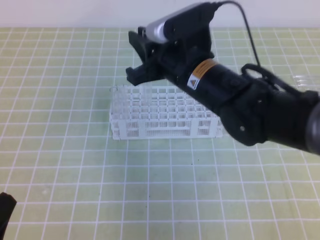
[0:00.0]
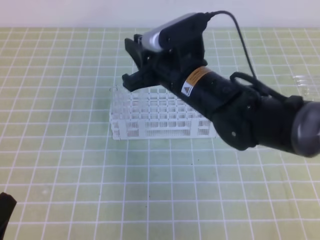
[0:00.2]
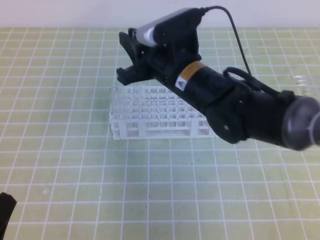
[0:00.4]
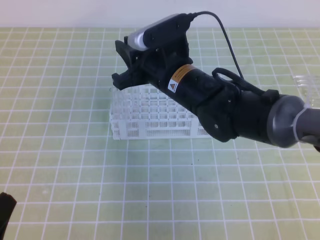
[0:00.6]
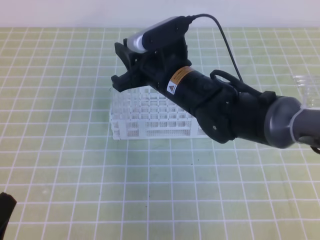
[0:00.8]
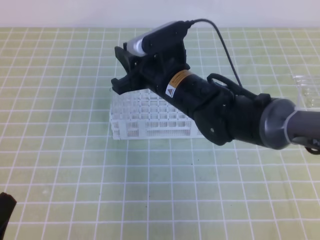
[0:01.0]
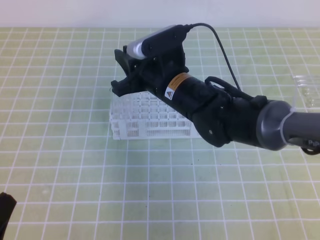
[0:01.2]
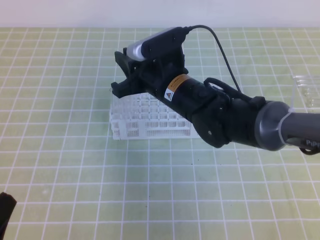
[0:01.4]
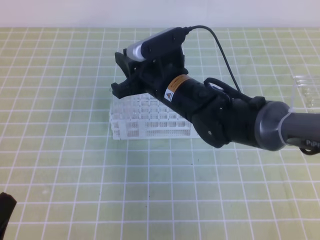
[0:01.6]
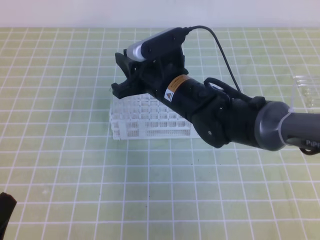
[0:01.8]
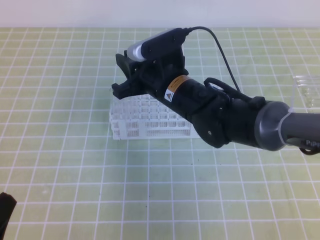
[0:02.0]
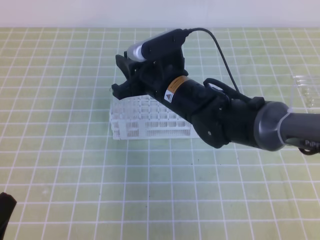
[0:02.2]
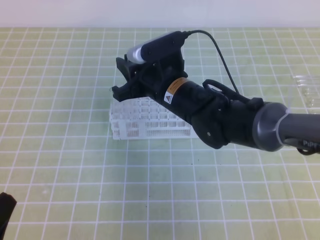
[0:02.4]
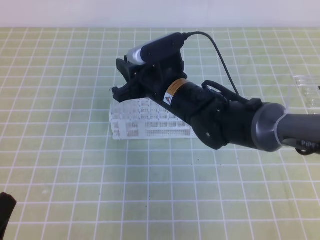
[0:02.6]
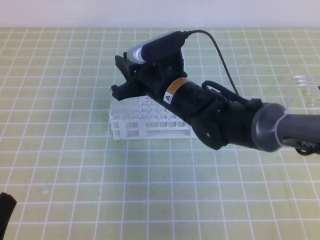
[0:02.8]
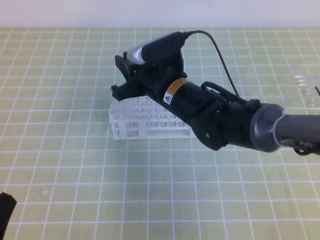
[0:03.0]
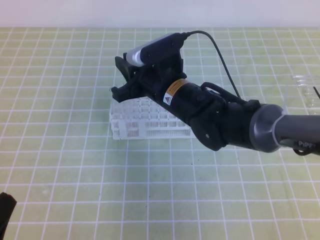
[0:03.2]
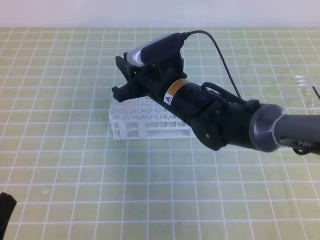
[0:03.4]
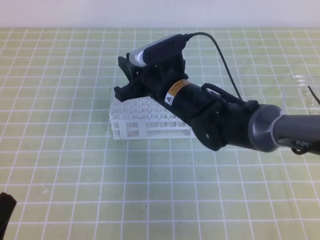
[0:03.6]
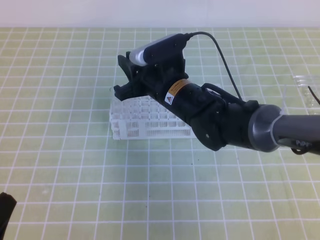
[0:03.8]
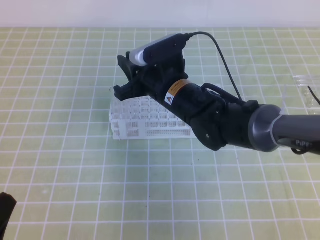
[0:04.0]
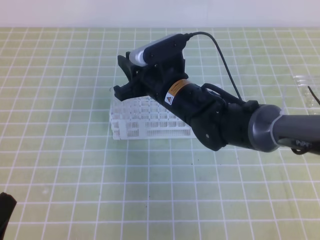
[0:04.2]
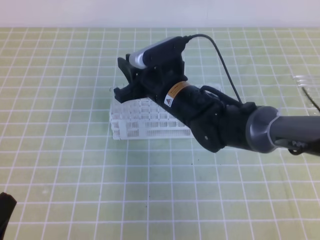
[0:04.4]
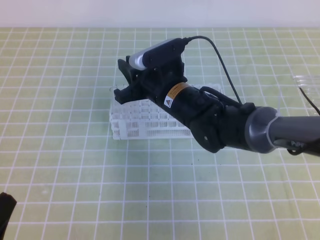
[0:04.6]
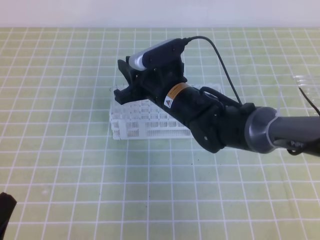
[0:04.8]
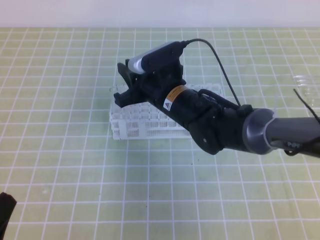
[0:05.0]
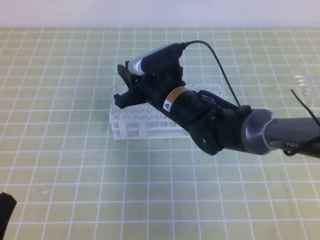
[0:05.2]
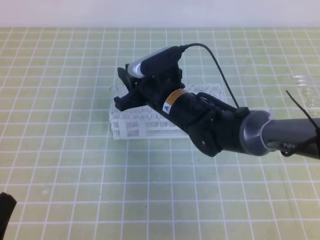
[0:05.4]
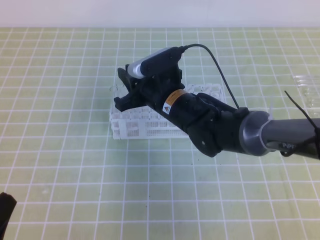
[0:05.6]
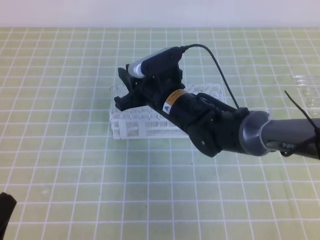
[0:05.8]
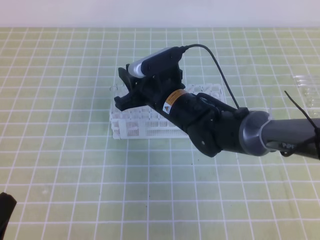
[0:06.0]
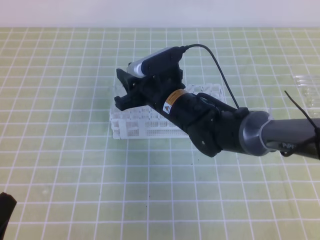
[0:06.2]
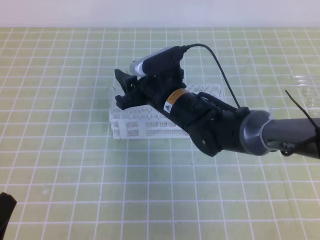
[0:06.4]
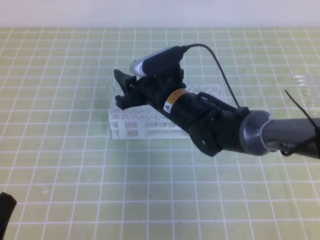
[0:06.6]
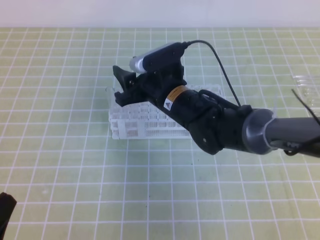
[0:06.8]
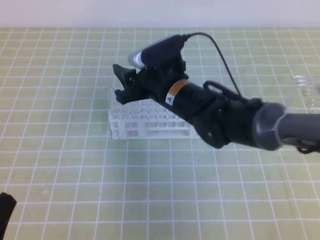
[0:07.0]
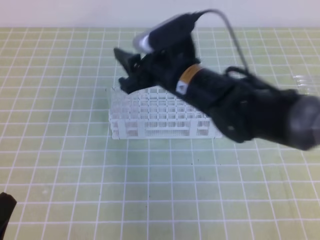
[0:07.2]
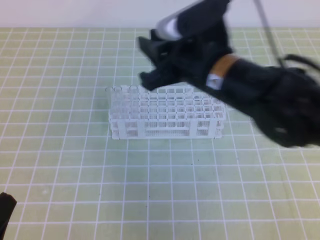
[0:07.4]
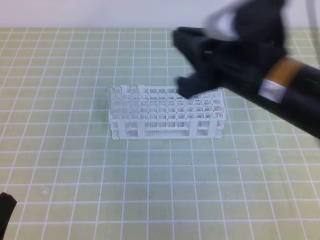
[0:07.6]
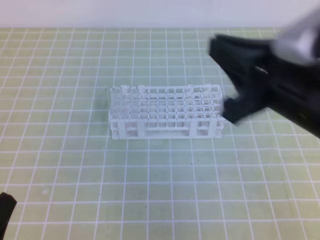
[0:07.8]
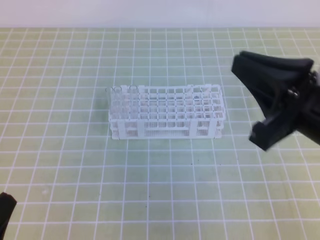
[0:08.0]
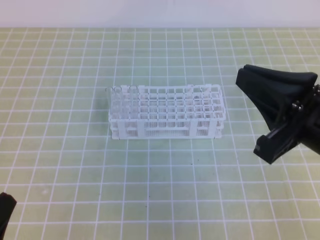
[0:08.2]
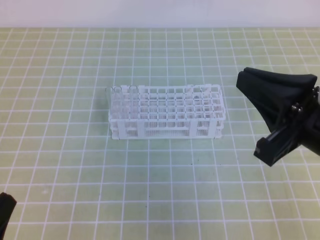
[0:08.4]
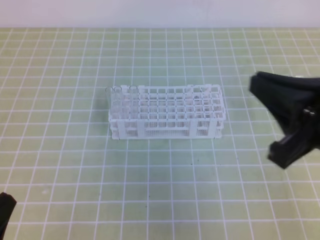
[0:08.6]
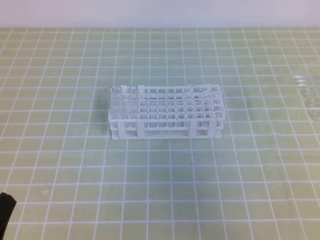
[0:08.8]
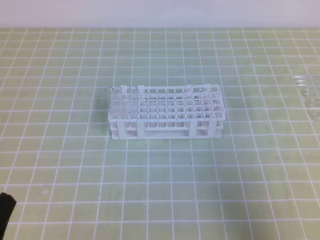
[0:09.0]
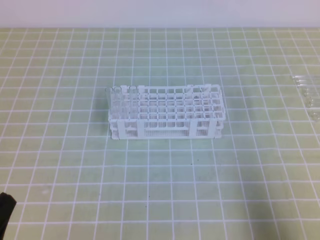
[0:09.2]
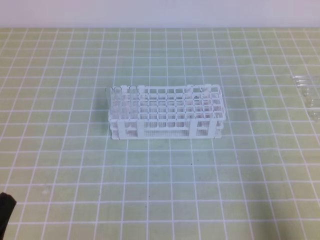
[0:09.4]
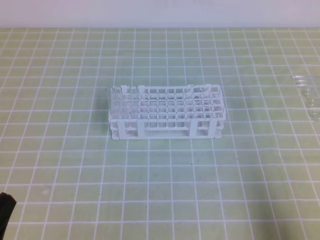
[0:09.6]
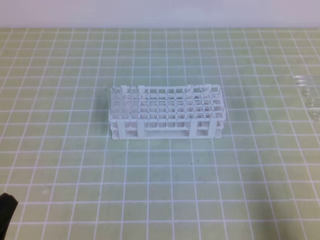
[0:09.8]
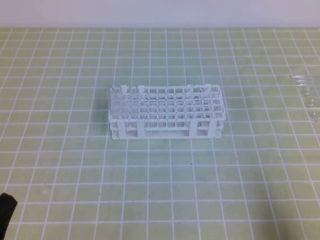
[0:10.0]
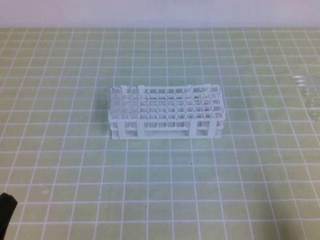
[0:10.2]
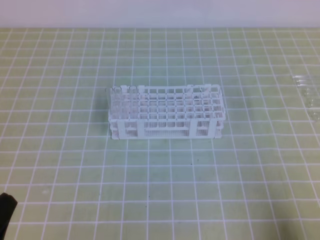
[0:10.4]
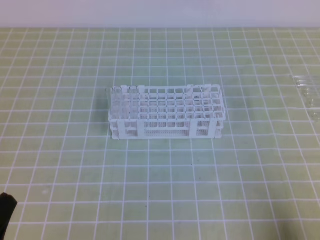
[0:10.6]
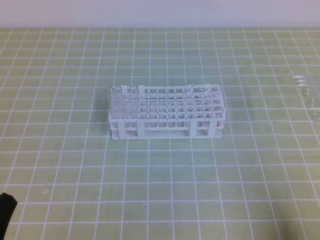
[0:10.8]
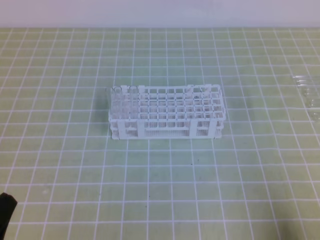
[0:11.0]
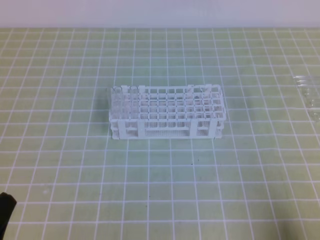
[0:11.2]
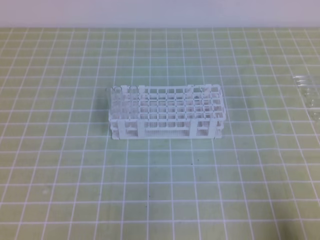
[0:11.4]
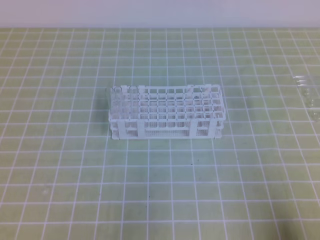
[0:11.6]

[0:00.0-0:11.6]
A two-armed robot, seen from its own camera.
0:00.0 to 0:01.4: The right gripper travels downward by approximately 5 cm.
0:01.4 to 0:02.8: Neither gripper changes place.
0:02.8 to 0:04.4: Neither gripper changes place.
0:04.4 to 0:05.8: The grippers make only small movements.
0:05.8 to 0:07.2: The right gripper goes some 5 cm upward, and opens.
0:07.2 to 0:08.8: The right gripper goes some 30 cm to the right and backward, and closes.
0:08.8 to 0:10.2: The right gripper goes roughly 15 cm downward, backward and to the right.

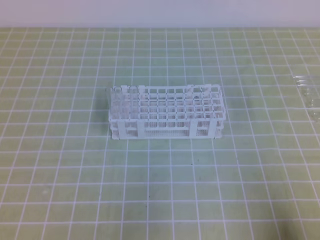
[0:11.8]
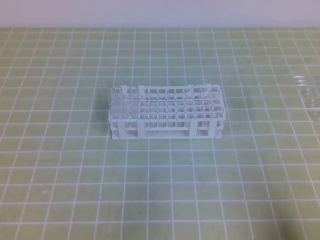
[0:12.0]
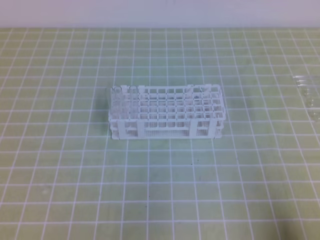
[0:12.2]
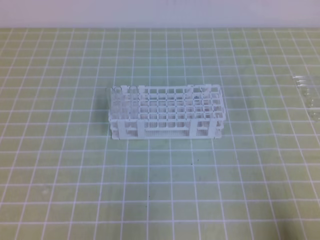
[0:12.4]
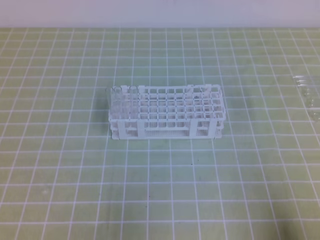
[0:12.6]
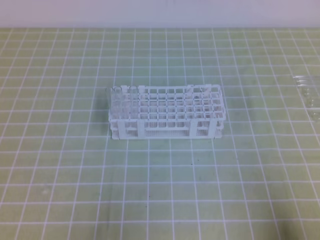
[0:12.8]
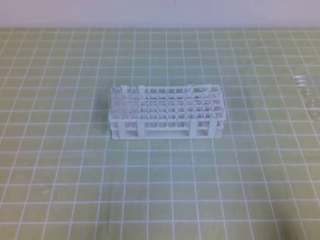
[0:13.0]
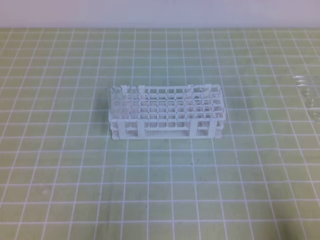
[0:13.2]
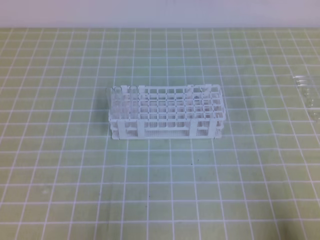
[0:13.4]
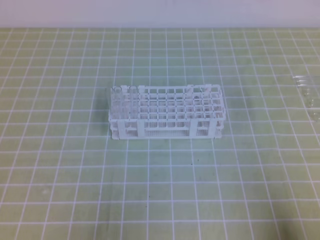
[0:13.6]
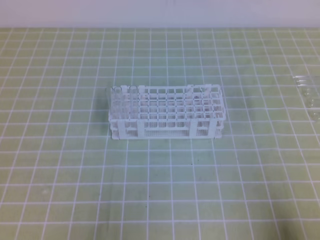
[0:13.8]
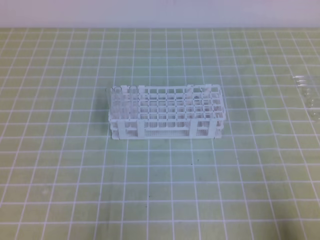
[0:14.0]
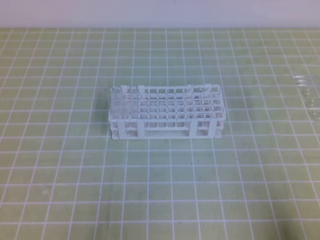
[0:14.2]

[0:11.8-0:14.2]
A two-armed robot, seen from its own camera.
0:13.0 to 0:14.2: Both grippers stay about where they are.
